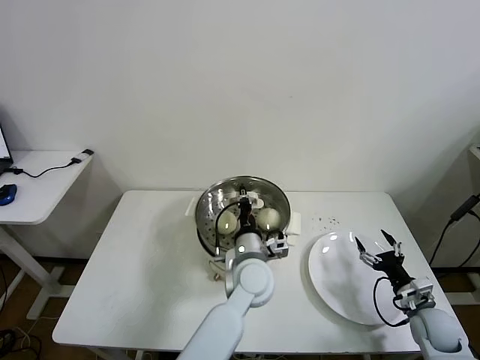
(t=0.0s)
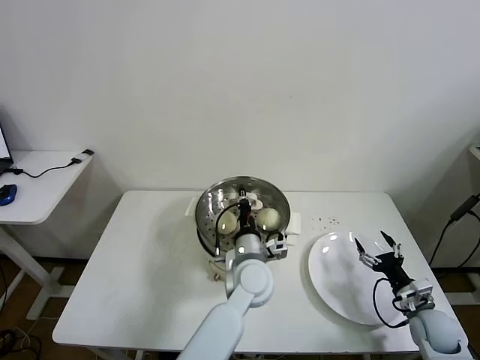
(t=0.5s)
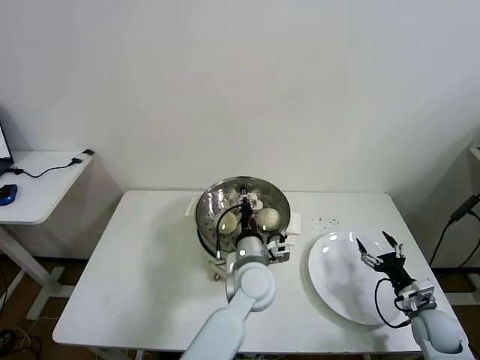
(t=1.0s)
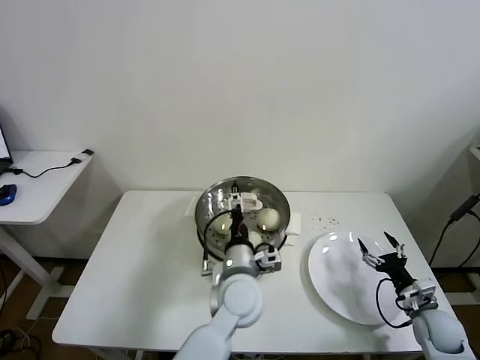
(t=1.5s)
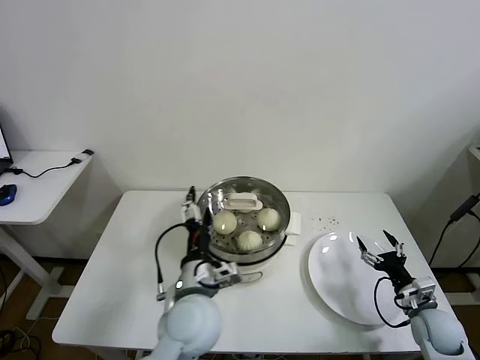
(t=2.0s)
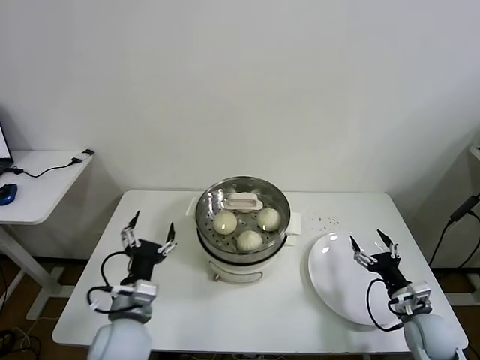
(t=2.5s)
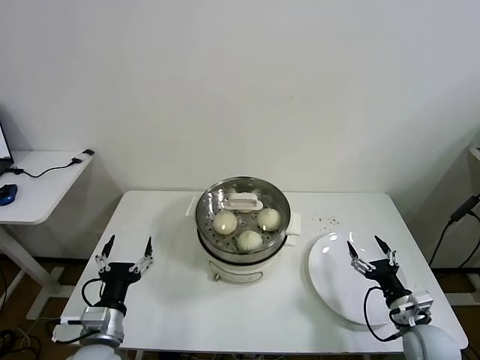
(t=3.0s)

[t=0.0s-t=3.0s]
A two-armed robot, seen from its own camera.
Task of the whole recording: take steamed baozi put them in steamer then cover it.
t=0.0s to t=1.5s: The left gripper opens up.
t=1.5s to t=3.0s: The right gripper shifts some 5 cm to the left. The left gripper goes approximately 30 cm to the left and backward.
